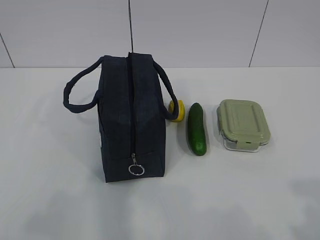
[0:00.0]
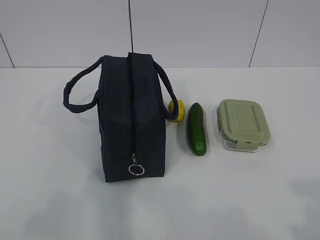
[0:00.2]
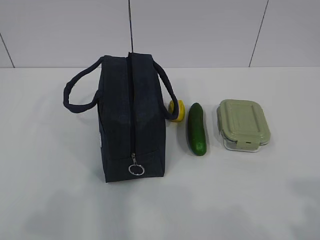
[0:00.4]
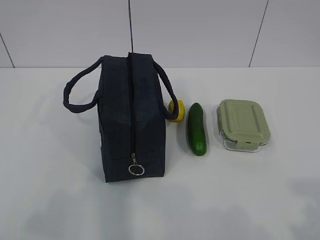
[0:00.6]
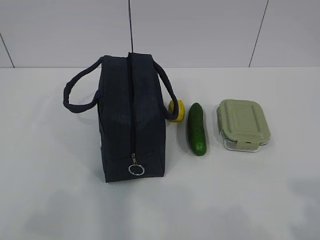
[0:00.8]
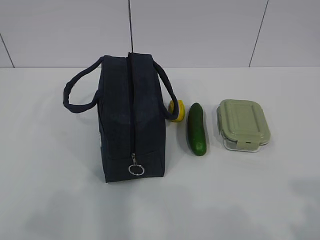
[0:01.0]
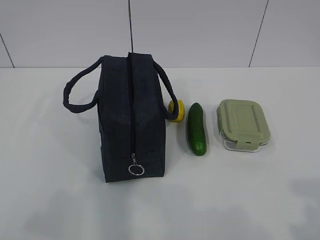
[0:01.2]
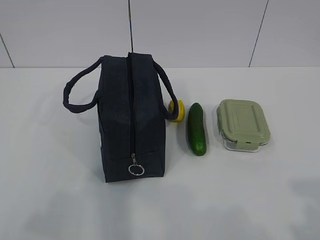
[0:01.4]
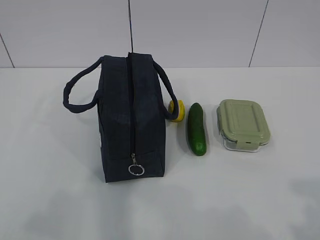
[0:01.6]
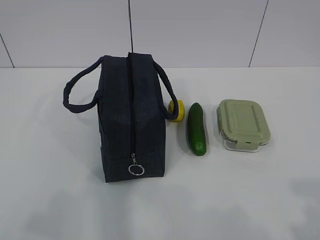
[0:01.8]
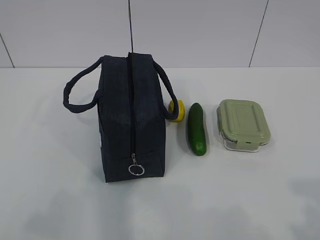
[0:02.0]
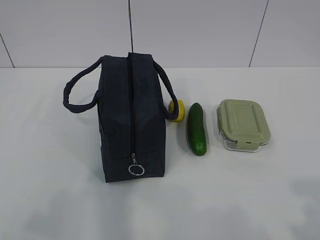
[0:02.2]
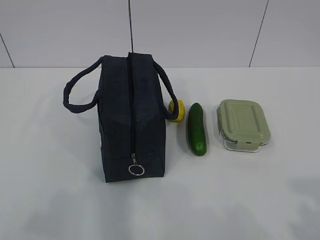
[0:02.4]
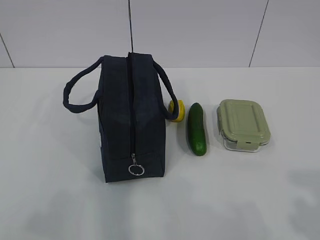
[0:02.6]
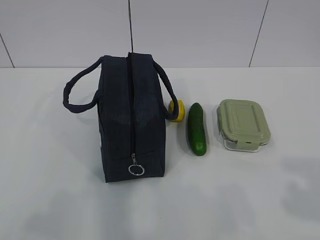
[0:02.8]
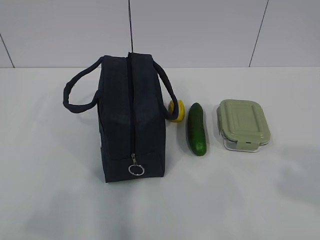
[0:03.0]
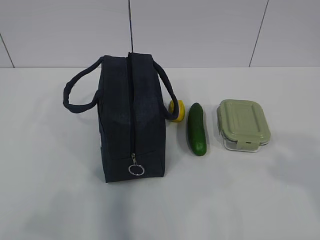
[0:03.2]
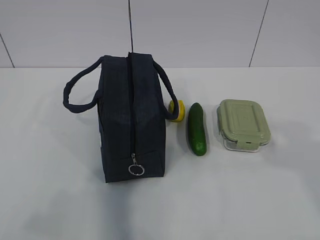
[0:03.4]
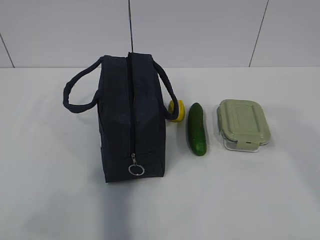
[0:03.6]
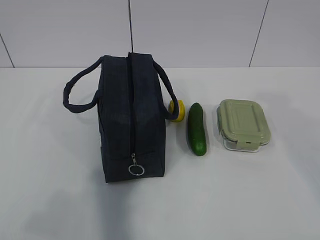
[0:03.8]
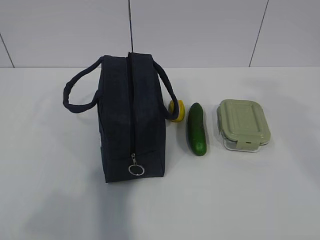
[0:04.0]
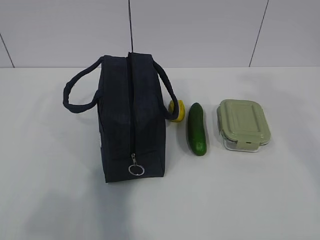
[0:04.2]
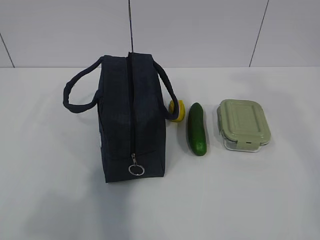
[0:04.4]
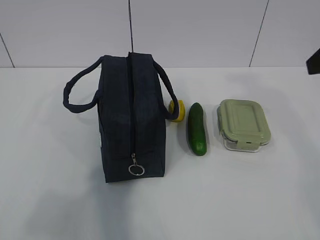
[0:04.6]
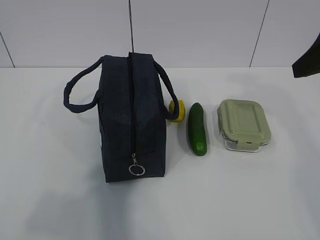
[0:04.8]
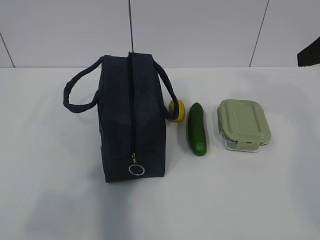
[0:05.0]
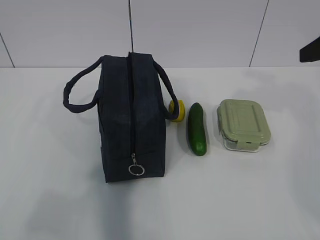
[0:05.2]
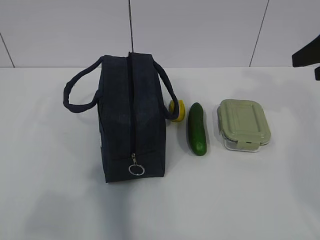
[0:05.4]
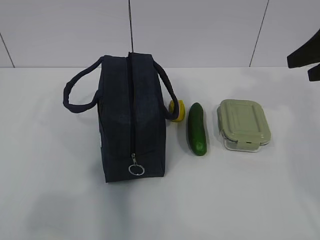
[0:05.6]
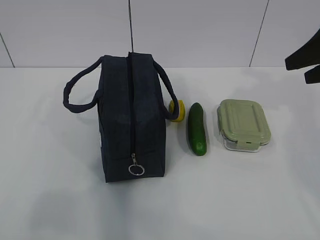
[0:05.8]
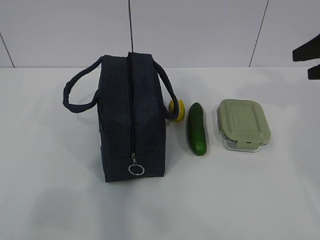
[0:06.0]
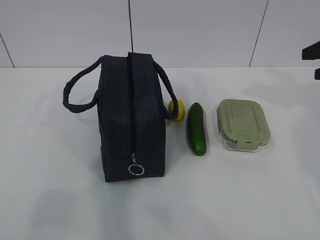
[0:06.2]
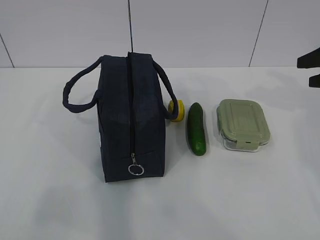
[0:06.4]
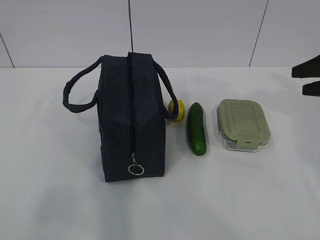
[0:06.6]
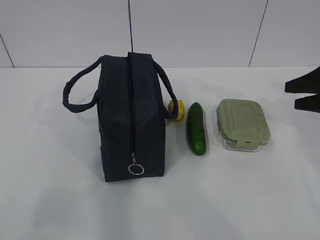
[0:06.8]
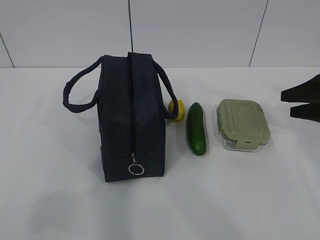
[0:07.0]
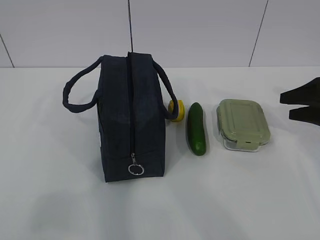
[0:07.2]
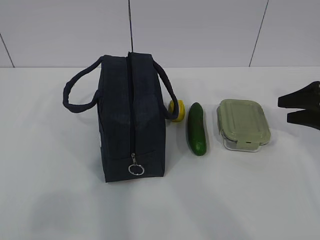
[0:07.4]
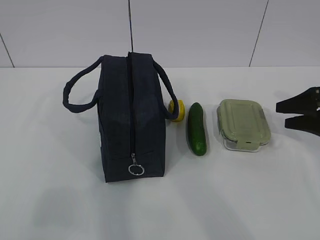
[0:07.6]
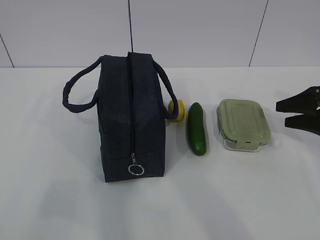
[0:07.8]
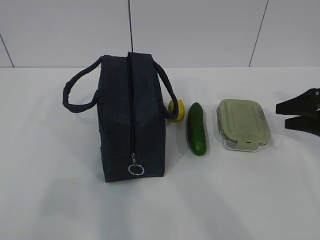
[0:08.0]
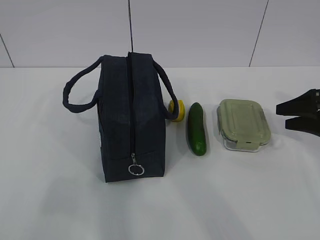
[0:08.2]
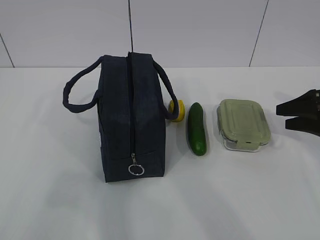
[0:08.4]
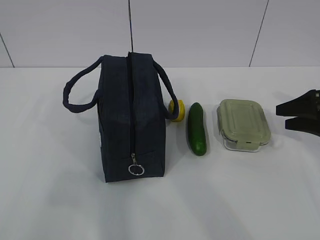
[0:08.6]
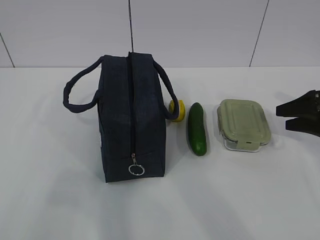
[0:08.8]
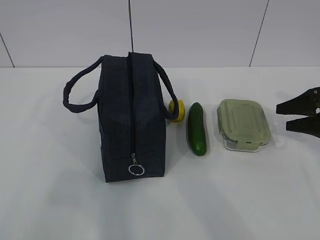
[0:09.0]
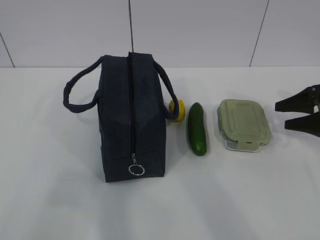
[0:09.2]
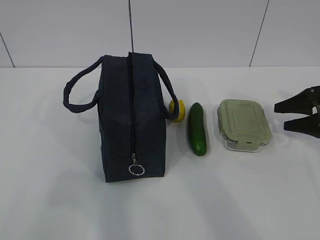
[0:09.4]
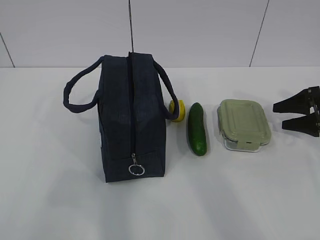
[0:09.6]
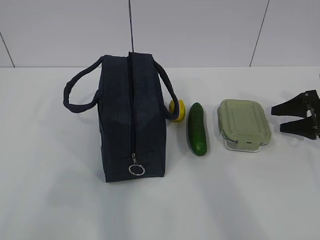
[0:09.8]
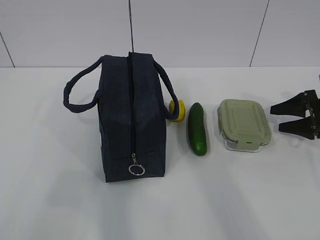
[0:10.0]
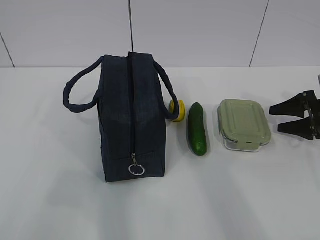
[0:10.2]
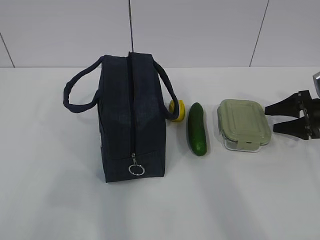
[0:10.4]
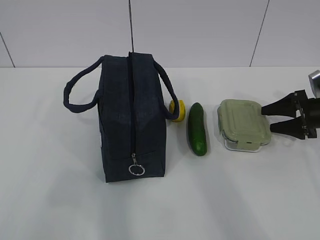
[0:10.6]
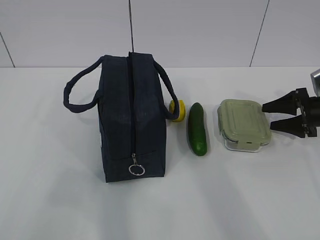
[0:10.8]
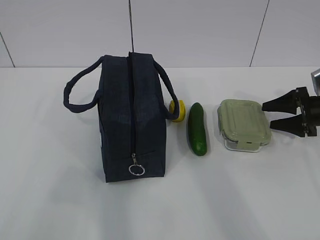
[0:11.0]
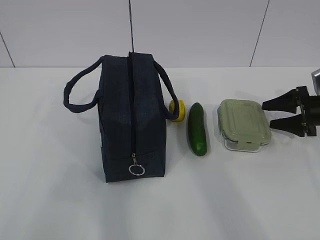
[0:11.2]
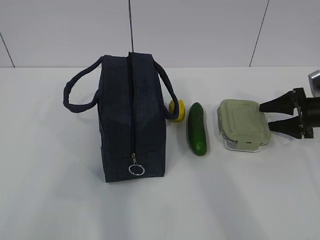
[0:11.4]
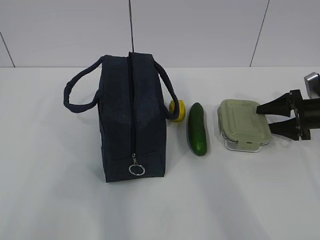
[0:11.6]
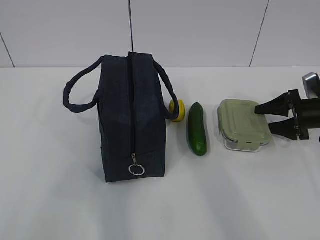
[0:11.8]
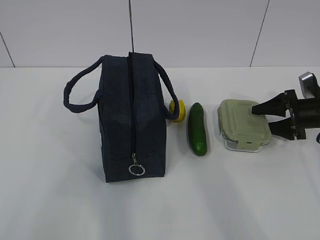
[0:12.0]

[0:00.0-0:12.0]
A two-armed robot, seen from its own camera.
0:04.4 to 0:06.0: The right gripper heads forward, downward and to the right, covering approximately 15 cm.
0:06.0 to 0:07.6: The right gripper shifts roughly 15 cm downward.
0:09.0 to 0:10.4: The right gripper changes place by some 5 cm.
0:10.4 to 0:12.0: There are only small adjustments of the grippers.

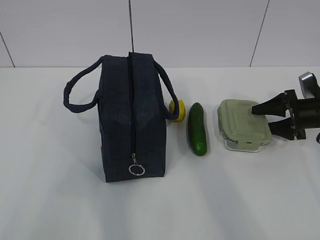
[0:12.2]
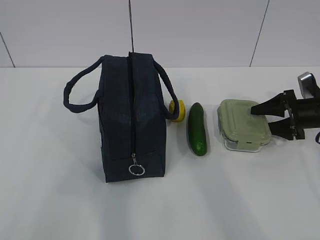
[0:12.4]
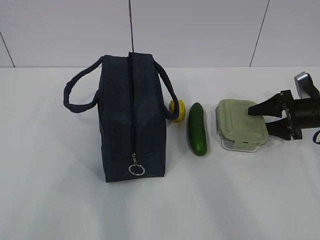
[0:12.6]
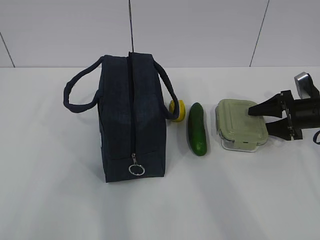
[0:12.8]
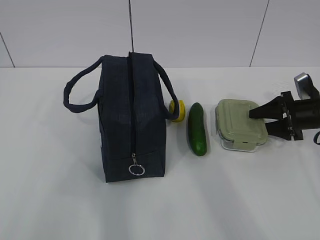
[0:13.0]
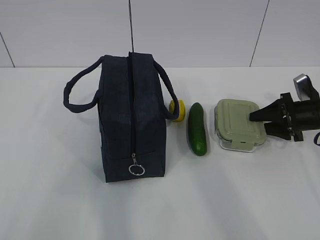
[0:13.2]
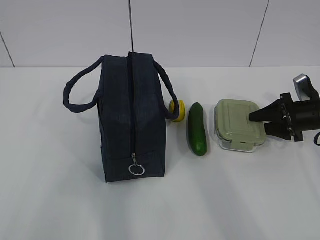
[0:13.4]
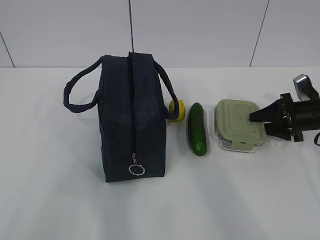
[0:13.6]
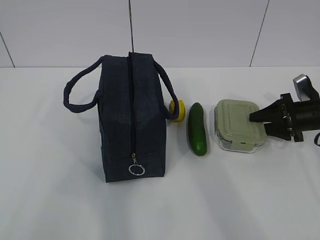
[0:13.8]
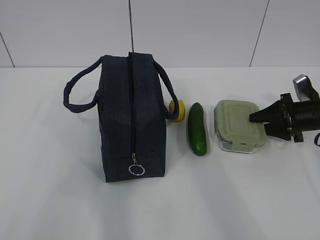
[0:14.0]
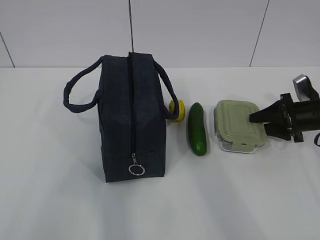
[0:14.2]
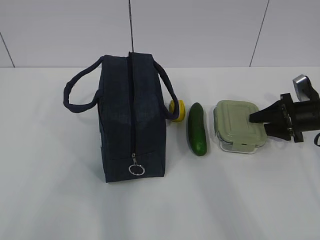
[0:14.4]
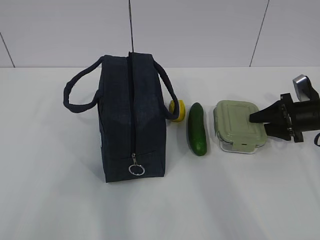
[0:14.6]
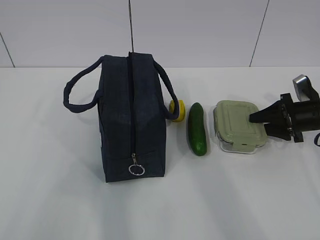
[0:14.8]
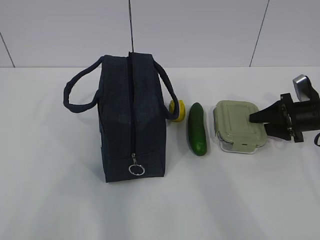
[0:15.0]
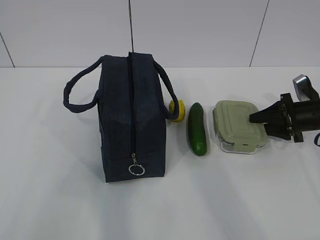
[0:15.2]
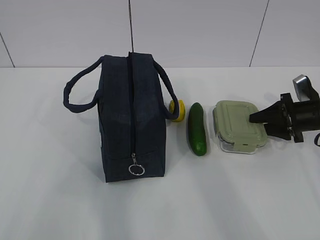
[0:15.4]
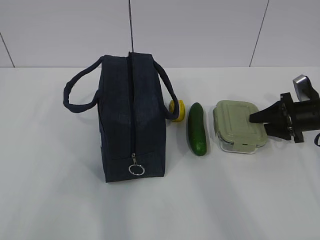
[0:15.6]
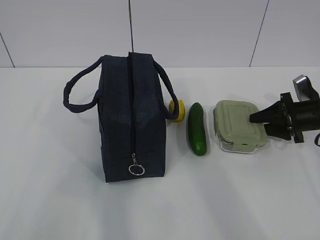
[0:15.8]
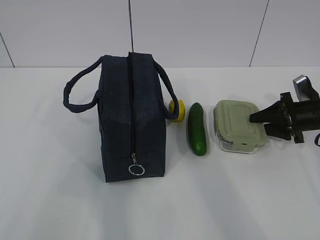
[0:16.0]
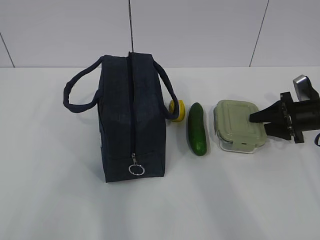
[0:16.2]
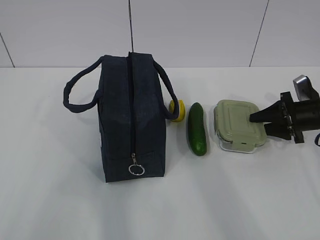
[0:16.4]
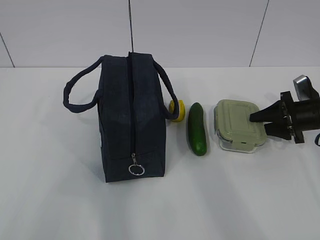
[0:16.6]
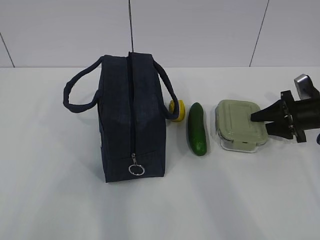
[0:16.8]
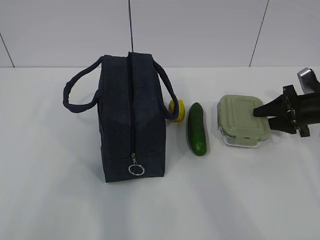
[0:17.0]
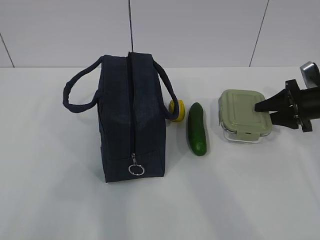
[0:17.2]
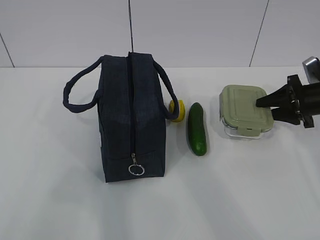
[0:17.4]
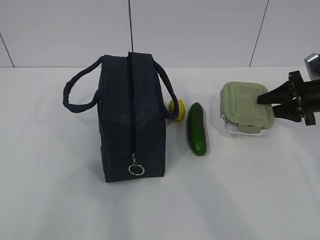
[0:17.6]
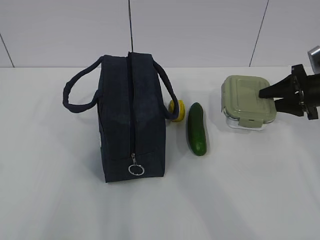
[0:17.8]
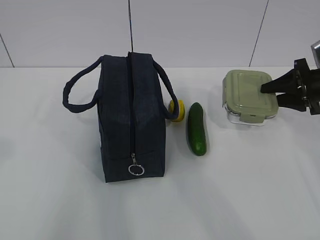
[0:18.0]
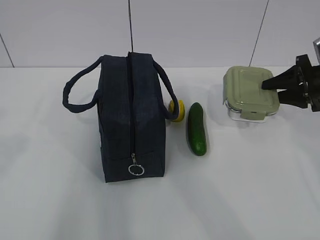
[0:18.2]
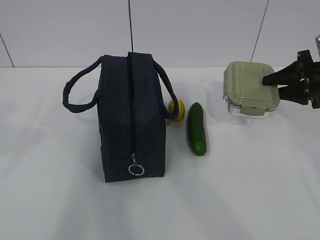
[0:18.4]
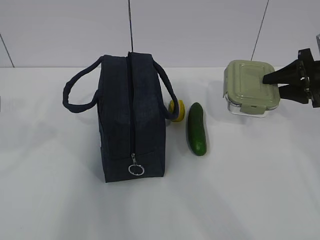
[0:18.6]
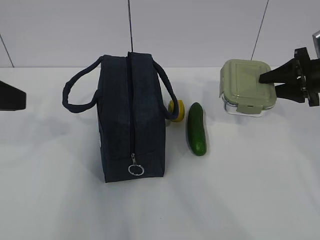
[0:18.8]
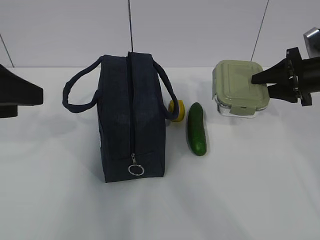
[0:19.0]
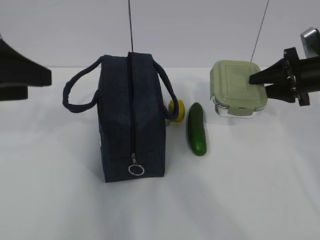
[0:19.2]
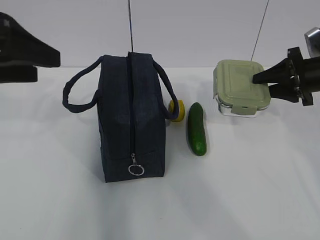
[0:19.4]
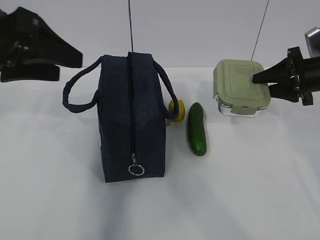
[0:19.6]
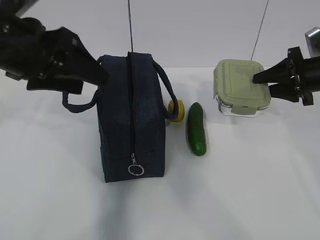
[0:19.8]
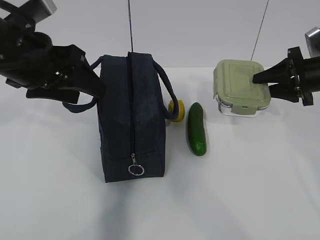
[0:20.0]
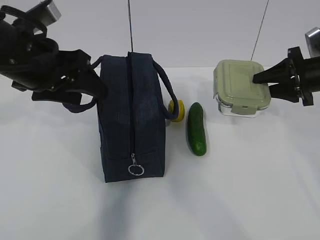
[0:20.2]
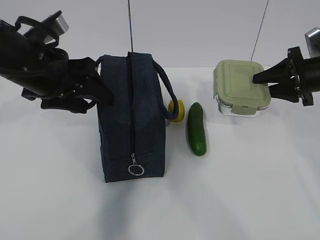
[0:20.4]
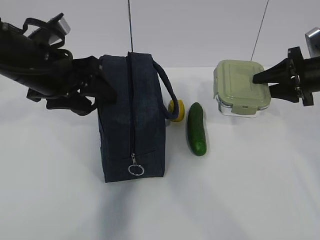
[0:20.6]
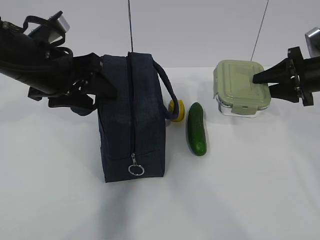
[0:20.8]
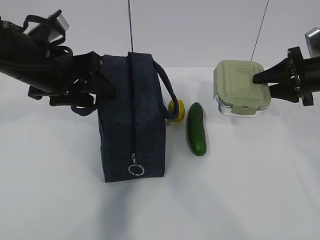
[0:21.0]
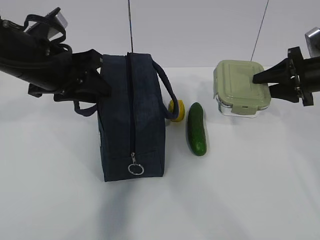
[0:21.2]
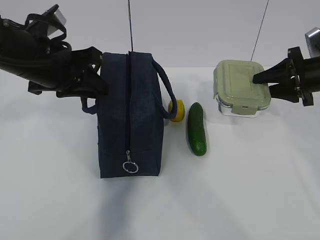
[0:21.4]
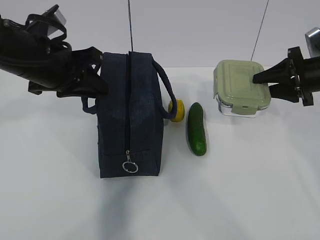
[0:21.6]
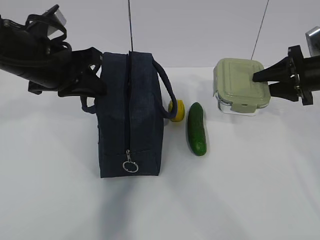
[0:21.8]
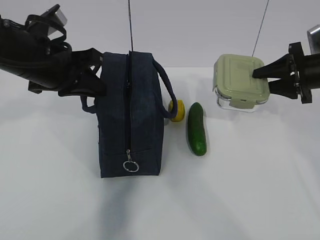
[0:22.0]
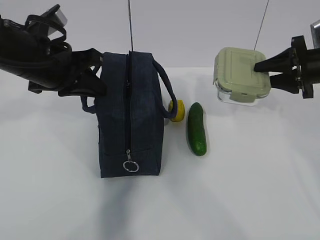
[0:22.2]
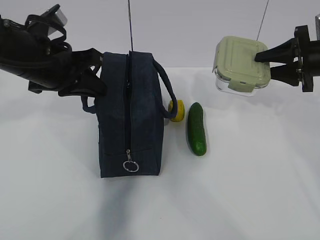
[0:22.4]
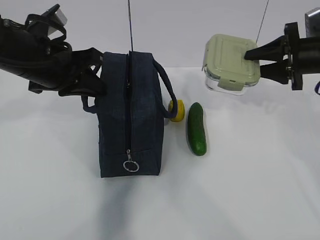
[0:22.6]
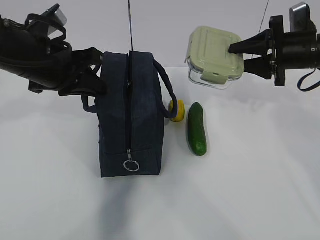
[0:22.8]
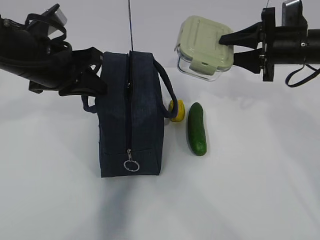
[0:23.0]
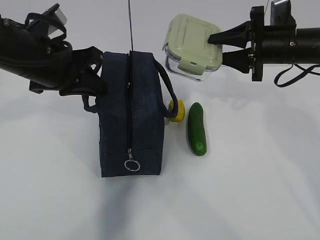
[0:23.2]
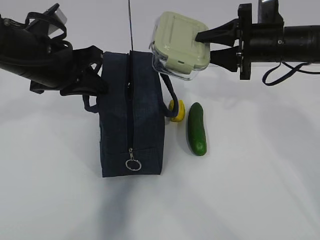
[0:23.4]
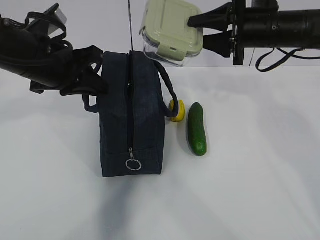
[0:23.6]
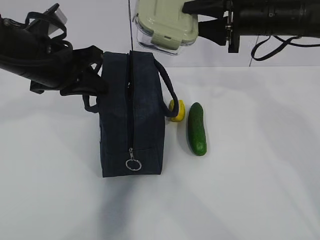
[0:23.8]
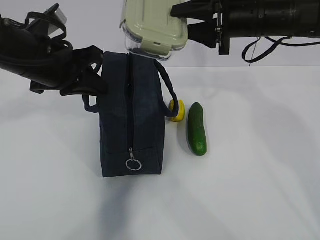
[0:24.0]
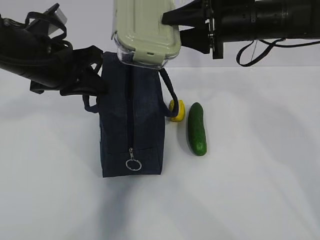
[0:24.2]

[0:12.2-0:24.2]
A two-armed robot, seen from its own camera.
Step, 0:14.0 to 0:20.4: Grab the lunch bag with your left hand.
Step, 0:20.6 to 0:22.8: Place it into the bag with your right hand.
0:12.2 to 0:15.2: Neither gripper changes place.
0:15.2 to 0:16.6: Both grippers stay put.
0:16.6 to 0:18.2: The left gripper moves forward, some 10 cm. Meanwhile the right gripper is displaced upward by some 10 cm.
0:18.2 to 0:19.8: The left gripper goes some 20 cm forward and to the right.
0:19.8 to 0:21.2: The left gripper shifts by about 5 cm, and closes up.
0:21.2 to 0:22.6: The left gripper closes up.
0:22.6 to 0:24.2: The right gripper heads to the left, covering about 15 cm.
